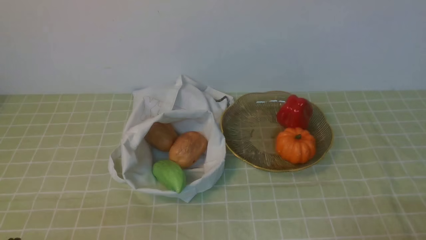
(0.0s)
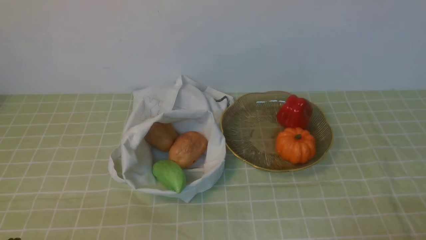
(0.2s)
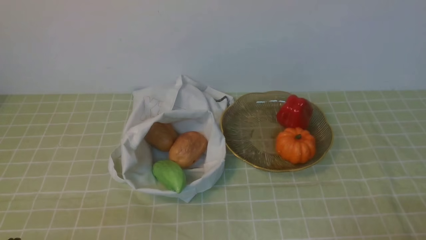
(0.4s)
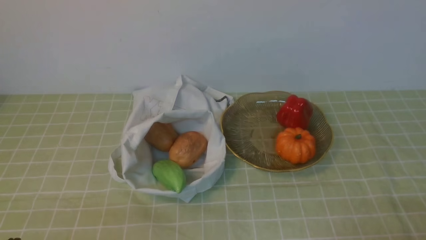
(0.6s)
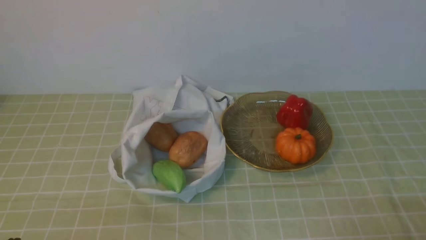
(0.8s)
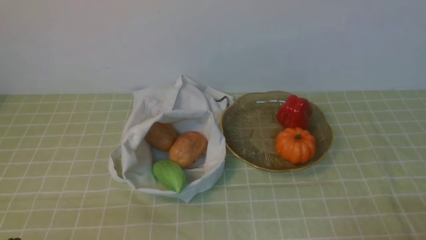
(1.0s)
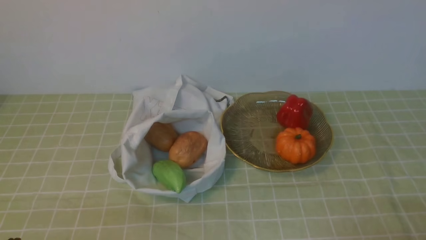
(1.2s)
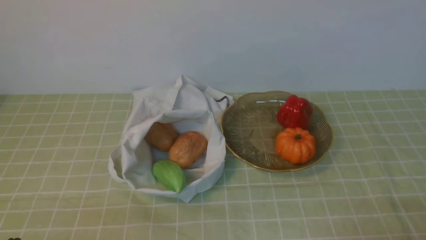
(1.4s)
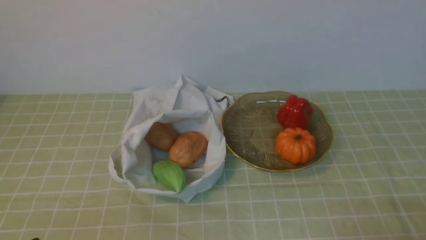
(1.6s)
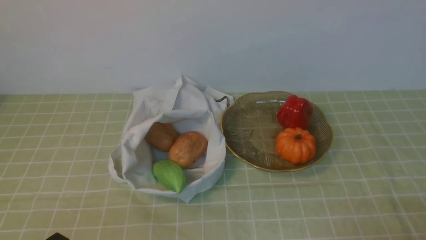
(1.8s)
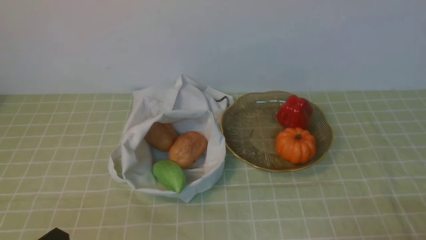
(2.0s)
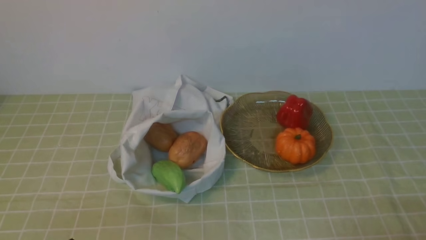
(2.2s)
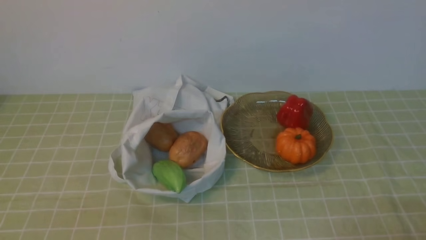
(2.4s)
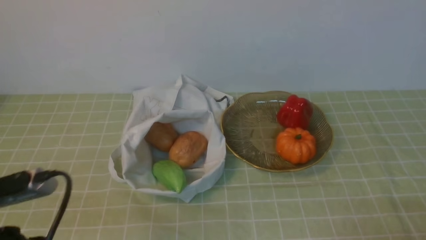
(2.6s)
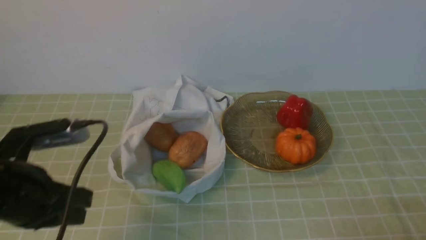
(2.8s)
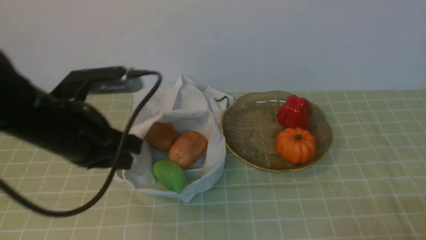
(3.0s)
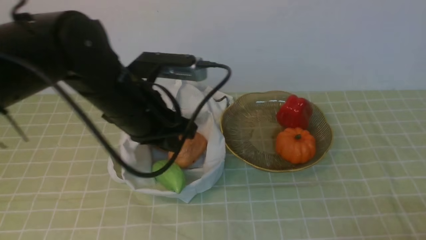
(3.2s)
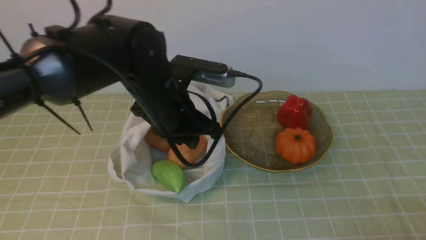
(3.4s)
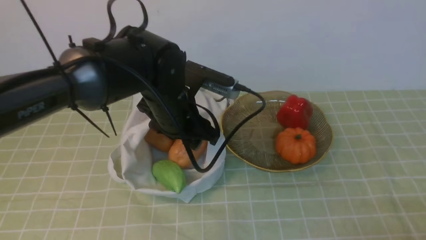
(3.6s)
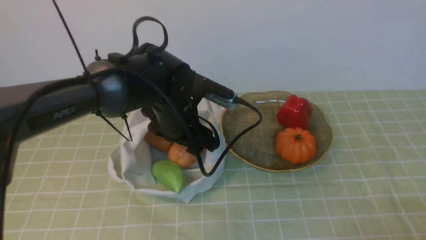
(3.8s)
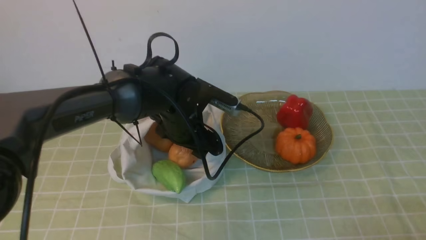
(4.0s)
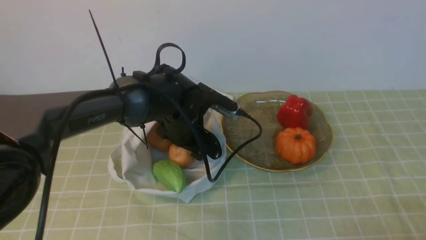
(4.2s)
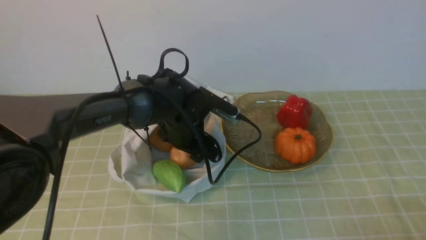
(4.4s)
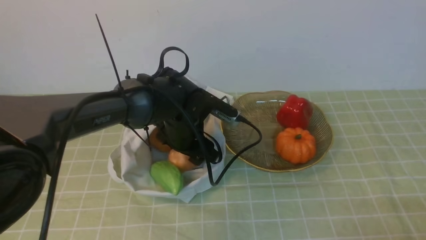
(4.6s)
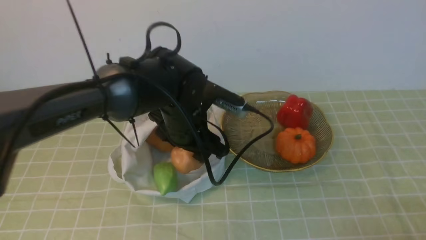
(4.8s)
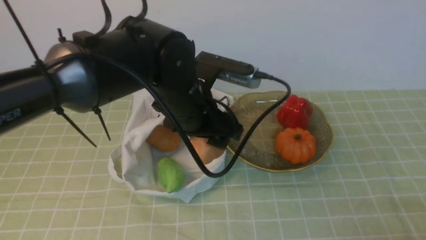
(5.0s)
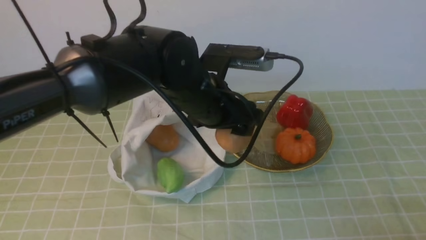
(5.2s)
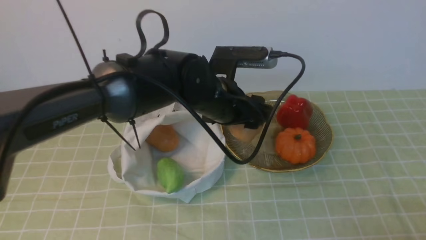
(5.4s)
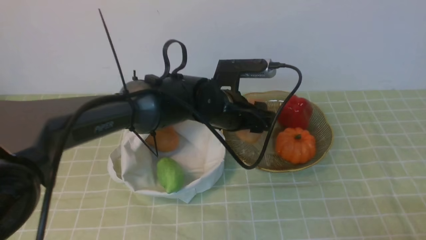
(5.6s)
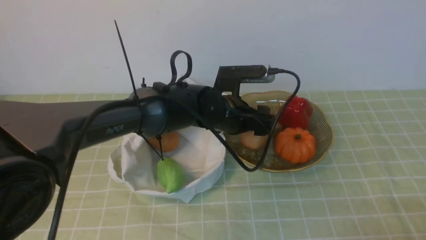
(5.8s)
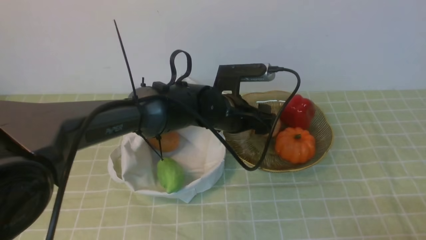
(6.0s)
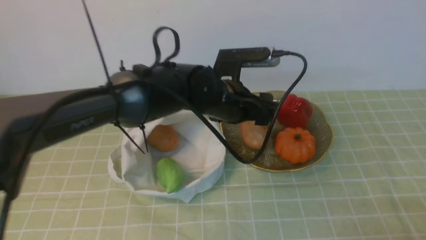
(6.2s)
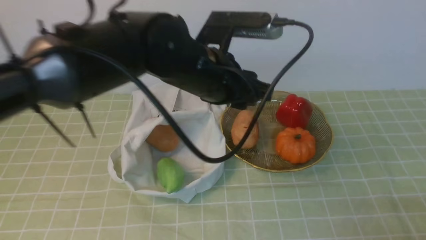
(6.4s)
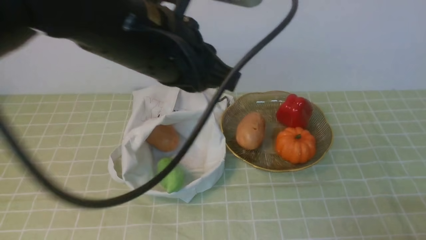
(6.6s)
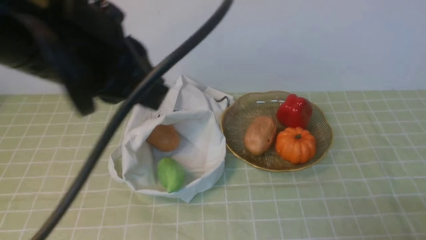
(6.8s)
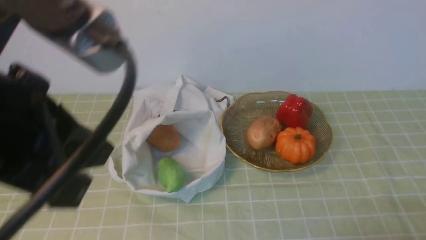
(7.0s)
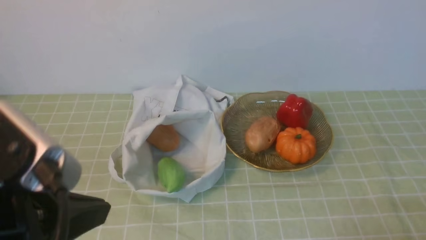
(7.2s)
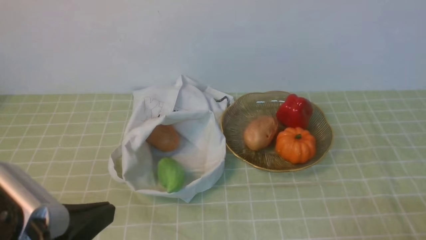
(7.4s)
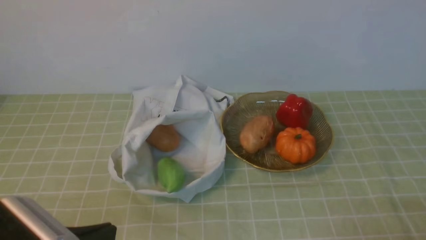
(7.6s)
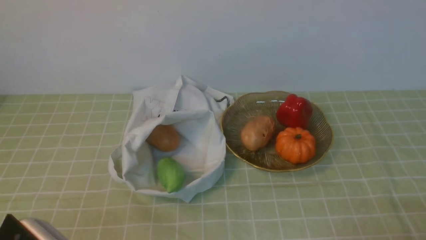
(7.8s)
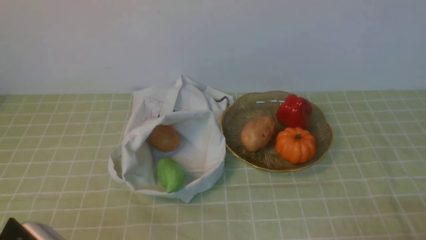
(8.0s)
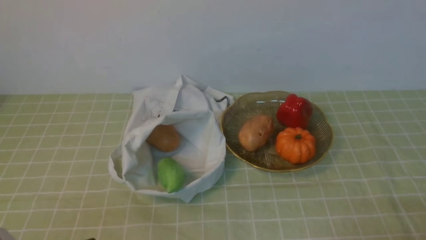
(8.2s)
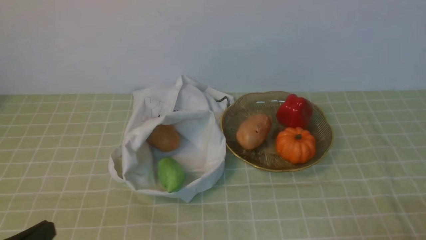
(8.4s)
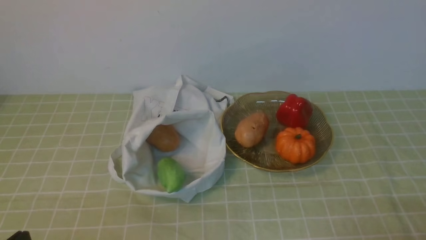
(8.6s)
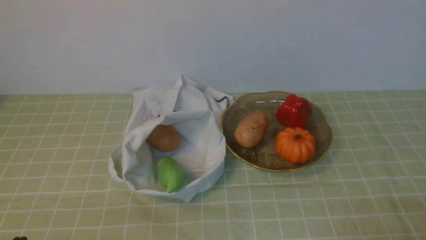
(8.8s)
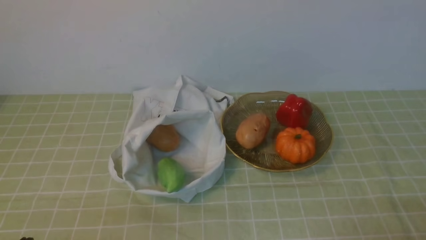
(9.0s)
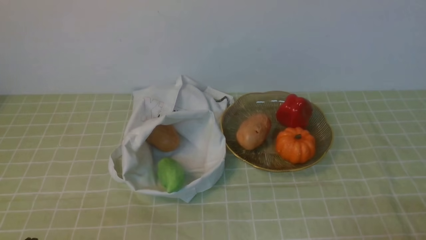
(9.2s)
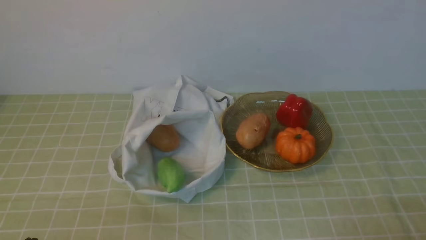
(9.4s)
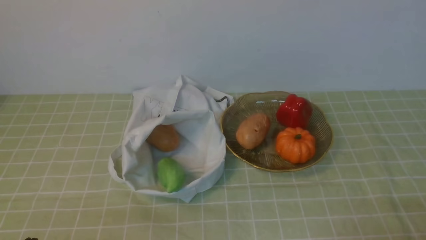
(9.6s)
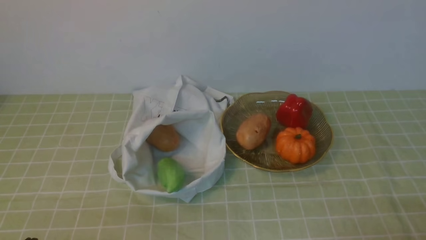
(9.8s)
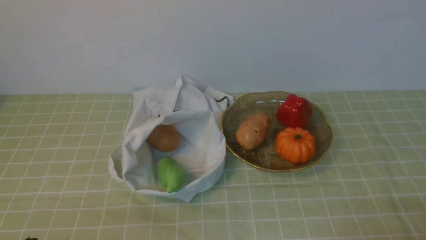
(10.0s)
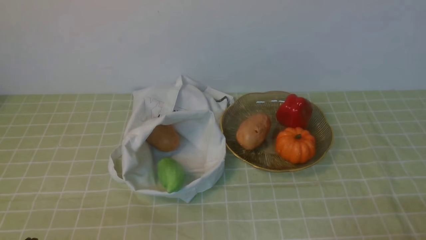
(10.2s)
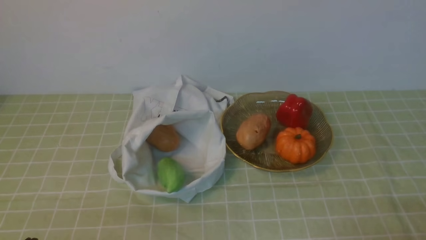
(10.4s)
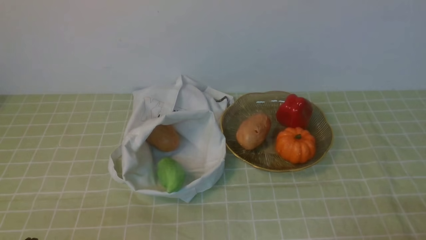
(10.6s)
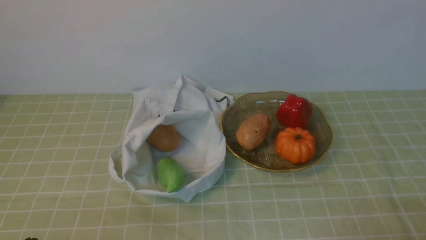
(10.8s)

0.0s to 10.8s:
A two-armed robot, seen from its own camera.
Task of the whole recording: take vegetables from bag on green coffee tablecloth place on plate.
Step, 0.0s to 4.4s: Grasp the potato with left gripper.
Step, 4.6s to 5.6s: Place the potato on the plate with left gripper.
1.6s to 3.0s: The left gripper travels forward and upward by roughly 20 cm.
3.0s to 4.6s: The left gripper heads forward, to the right and downward, covering approximately 20 cm, and opens its fingers.
4.6s to 6.2s: The left gripper is displaced upward and to the right by roughly 10 cm.
6.2s to 7.8s: The left gripper travels backward and to the left by some 35 cm, and closes up.
7.8s to 9.2s: The left gripper is displaced downward and to the left by approximately 10 cm.
9.2s to 10.8s: The two grippers keep their place.

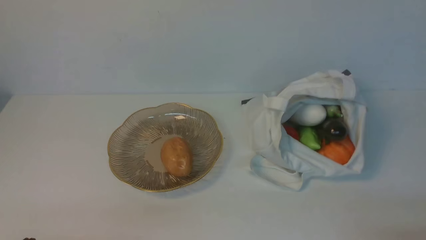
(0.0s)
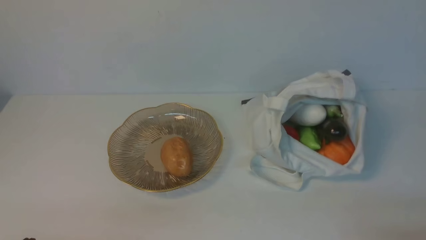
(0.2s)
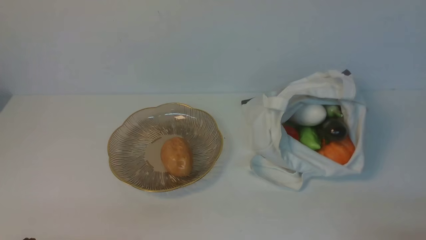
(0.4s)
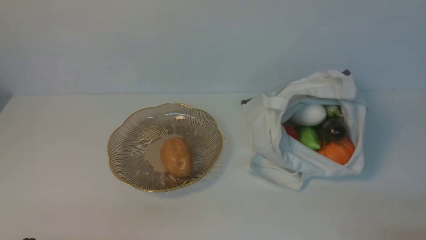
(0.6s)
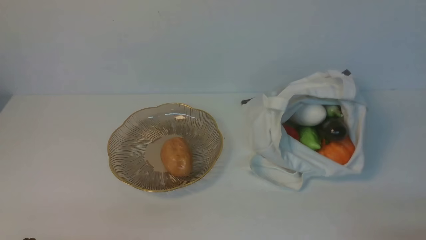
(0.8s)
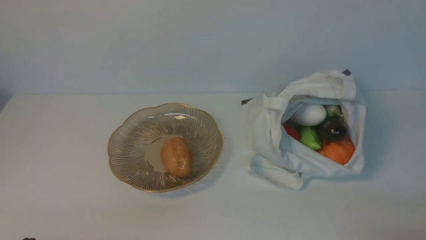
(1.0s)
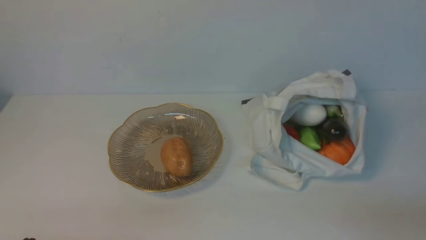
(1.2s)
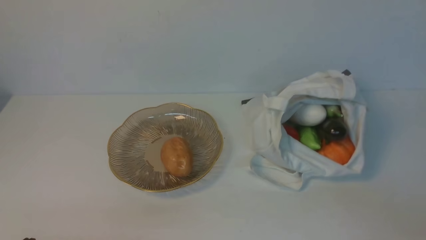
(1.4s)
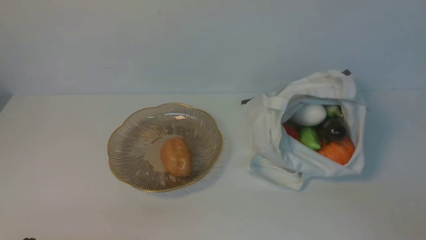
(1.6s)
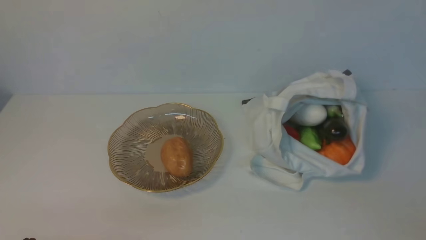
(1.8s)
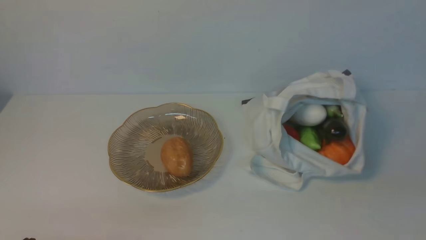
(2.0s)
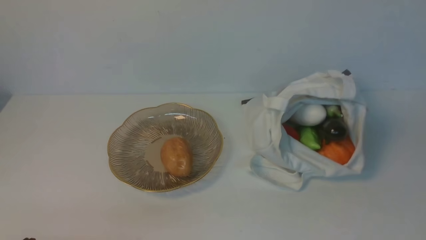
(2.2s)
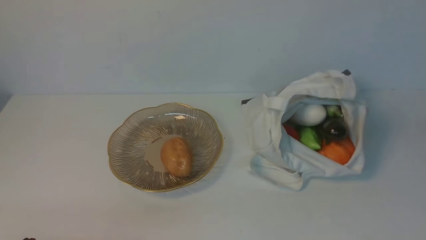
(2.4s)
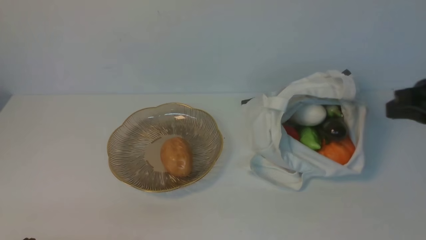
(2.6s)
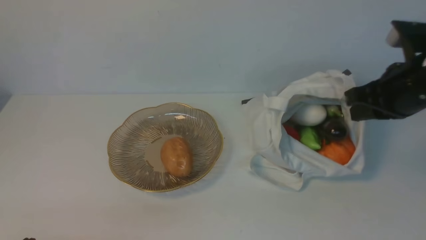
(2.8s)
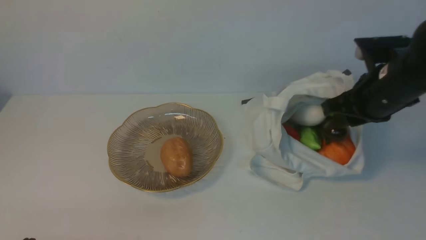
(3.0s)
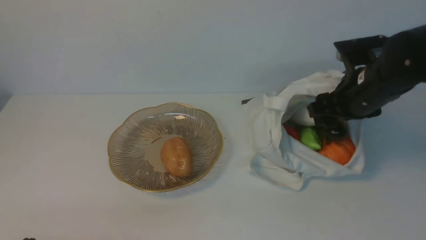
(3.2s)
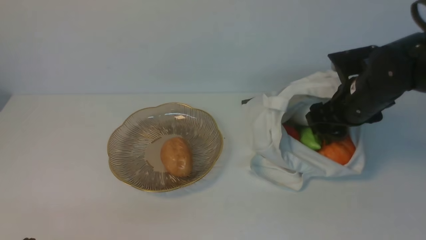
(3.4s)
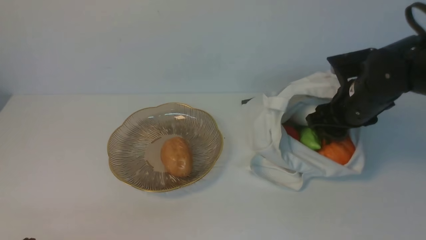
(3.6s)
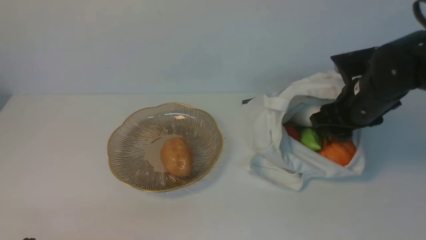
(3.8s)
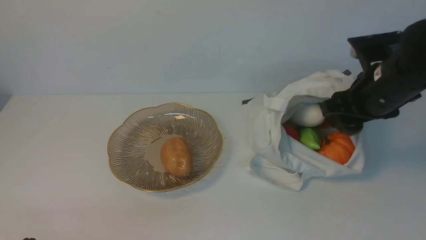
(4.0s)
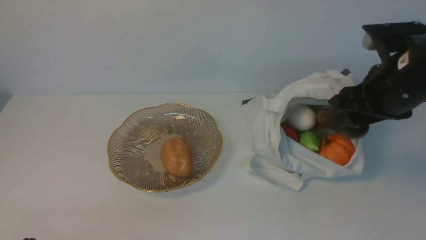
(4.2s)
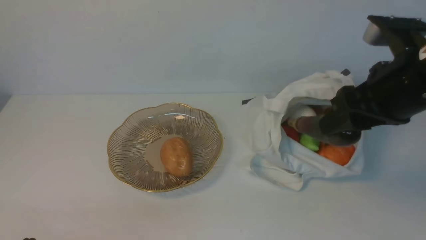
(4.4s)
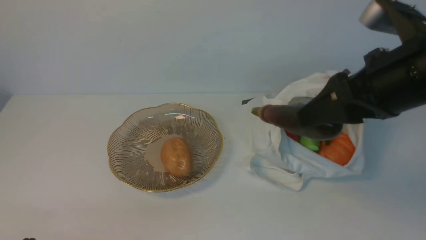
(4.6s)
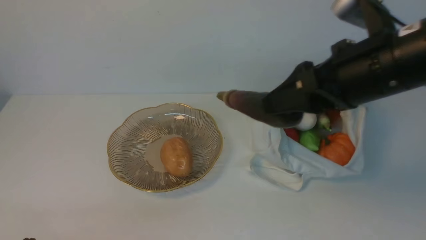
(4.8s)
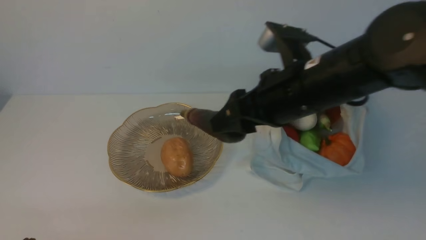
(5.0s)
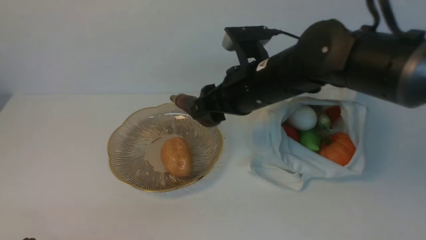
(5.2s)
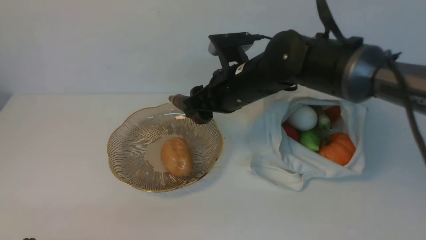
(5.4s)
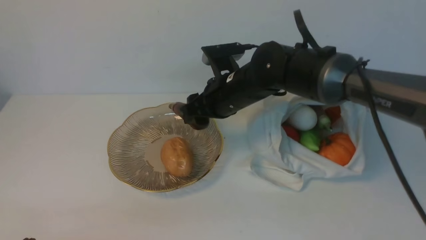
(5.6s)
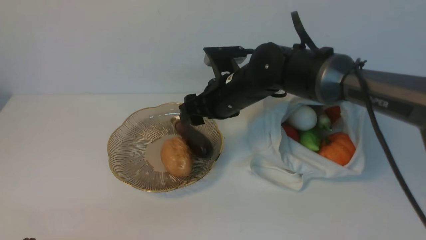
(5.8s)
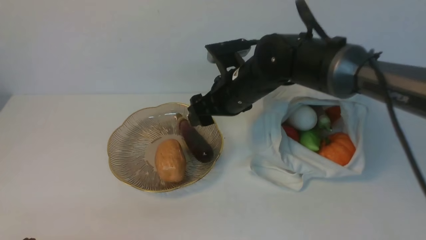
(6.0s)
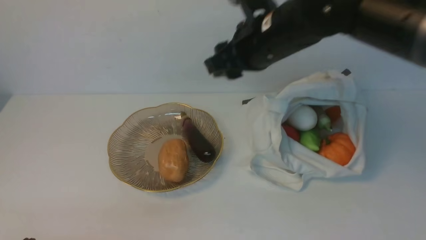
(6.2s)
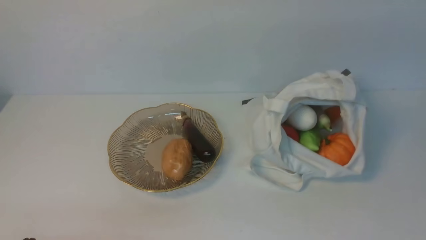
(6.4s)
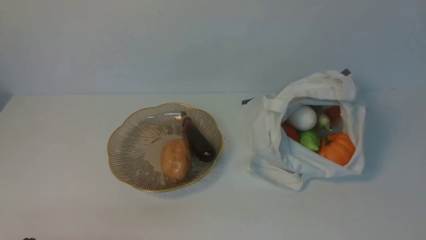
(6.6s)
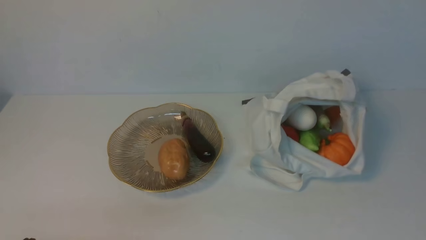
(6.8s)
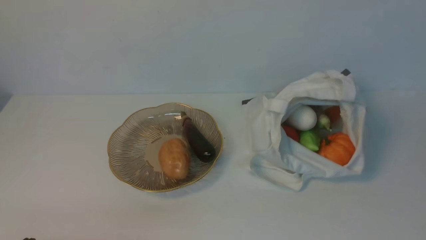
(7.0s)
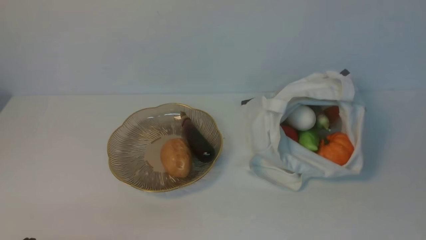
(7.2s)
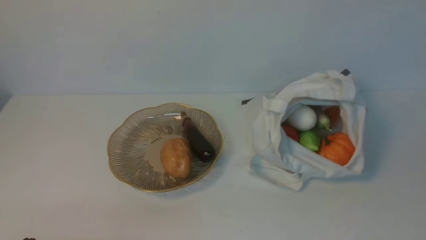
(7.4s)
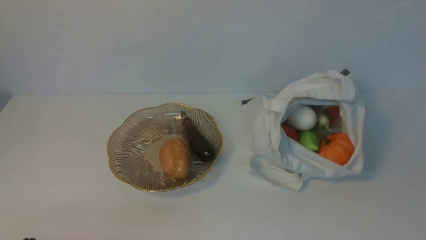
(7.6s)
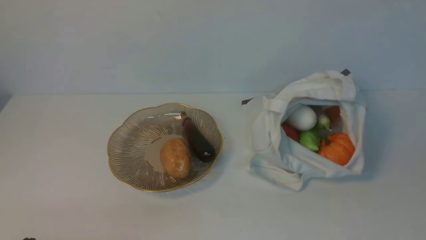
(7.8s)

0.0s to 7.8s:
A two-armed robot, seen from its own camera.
Task of the whole recording: take vegetables from cloth bag on white table place on plate.
Step, 0.0s to 3.6s: Grasp the eggplant with right gripper.
Step, 4.0s to 5.8s: Place the eggplant on the plate with right gripper.
1.6s to 3.2s: The right gripper heads forward, covering approximately 30 cm, and opens its fingers.
3.2s to 4.6s: The right gripper is displaced upward and backward by approximately 15 cm.
4.6s to 6.2s: The right gripper travels to the left and forward by about 10 cm.
6.2s to 7.8s: The right gripper heads backward and to the right, covering some 40 cm, and closes its fingers.
